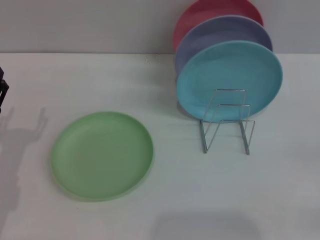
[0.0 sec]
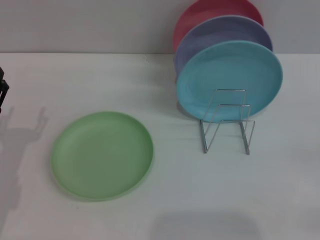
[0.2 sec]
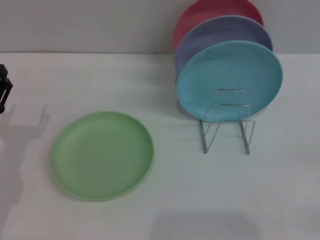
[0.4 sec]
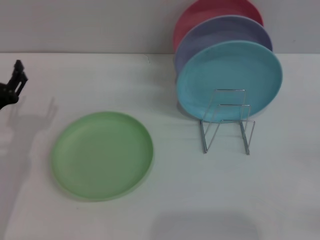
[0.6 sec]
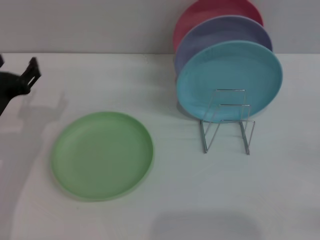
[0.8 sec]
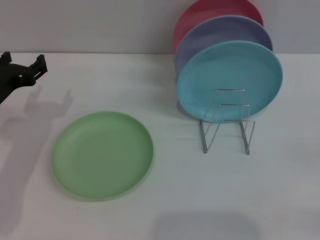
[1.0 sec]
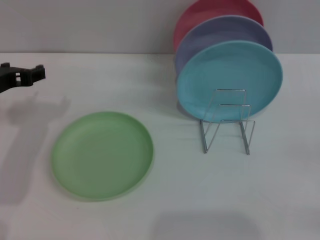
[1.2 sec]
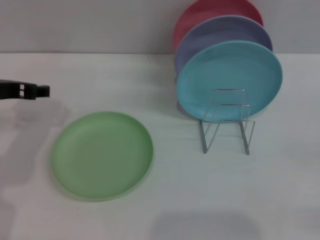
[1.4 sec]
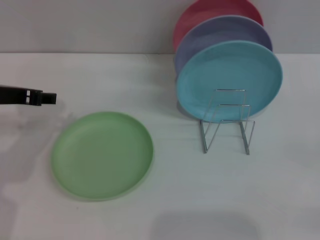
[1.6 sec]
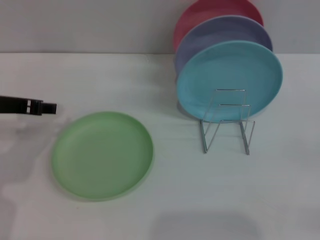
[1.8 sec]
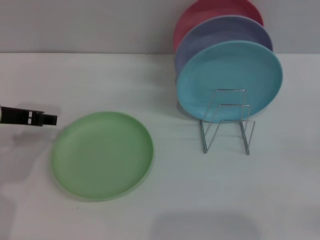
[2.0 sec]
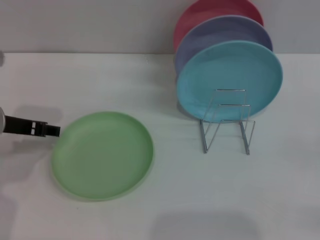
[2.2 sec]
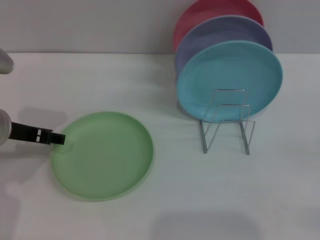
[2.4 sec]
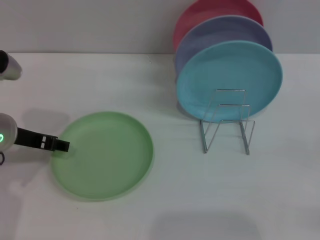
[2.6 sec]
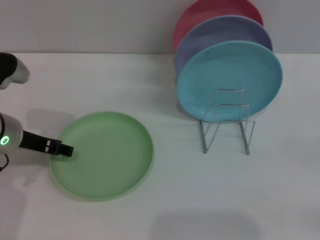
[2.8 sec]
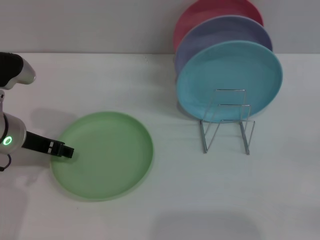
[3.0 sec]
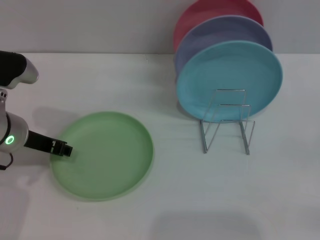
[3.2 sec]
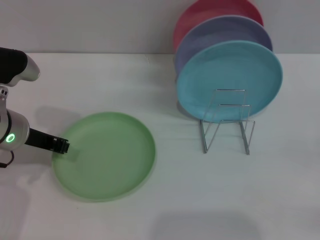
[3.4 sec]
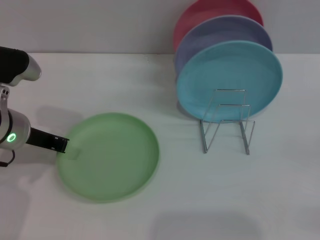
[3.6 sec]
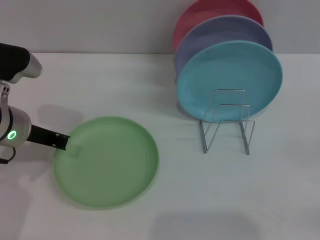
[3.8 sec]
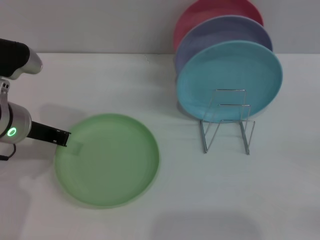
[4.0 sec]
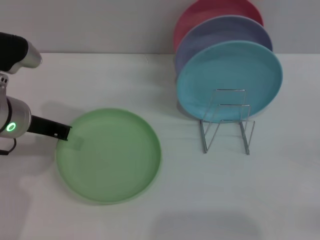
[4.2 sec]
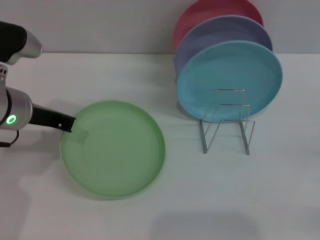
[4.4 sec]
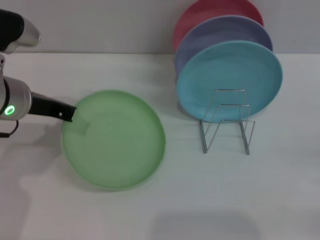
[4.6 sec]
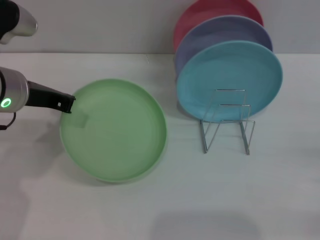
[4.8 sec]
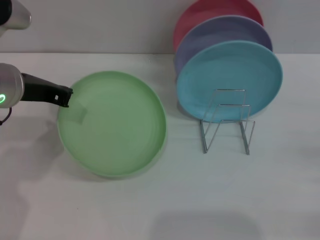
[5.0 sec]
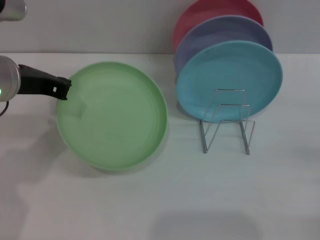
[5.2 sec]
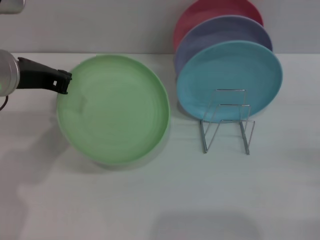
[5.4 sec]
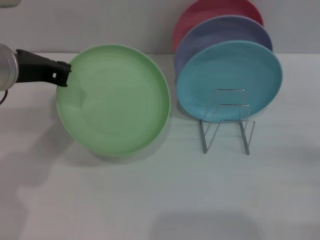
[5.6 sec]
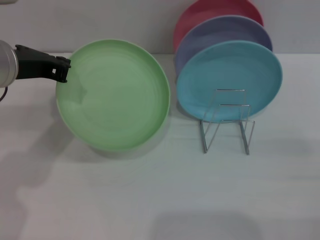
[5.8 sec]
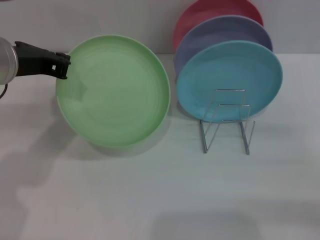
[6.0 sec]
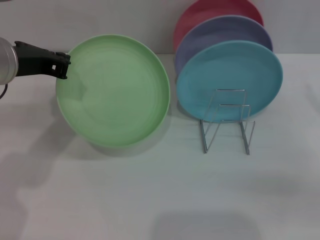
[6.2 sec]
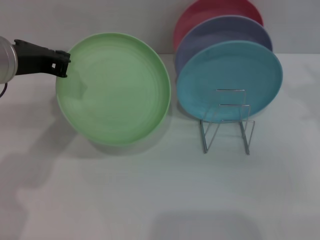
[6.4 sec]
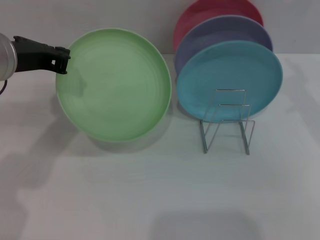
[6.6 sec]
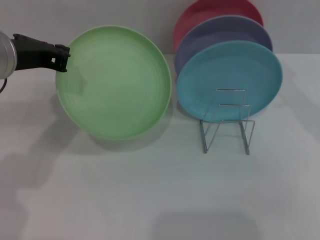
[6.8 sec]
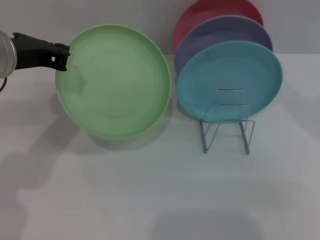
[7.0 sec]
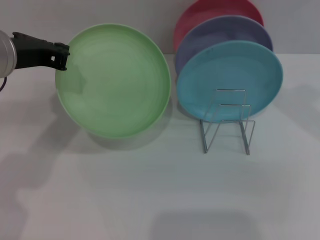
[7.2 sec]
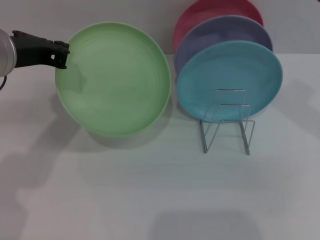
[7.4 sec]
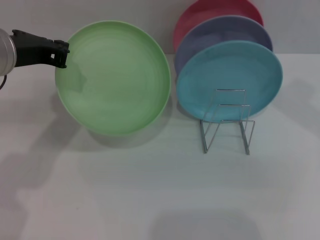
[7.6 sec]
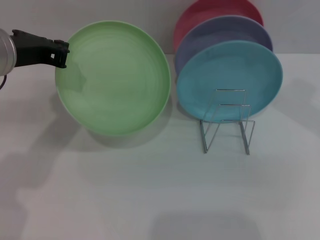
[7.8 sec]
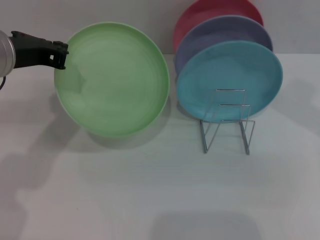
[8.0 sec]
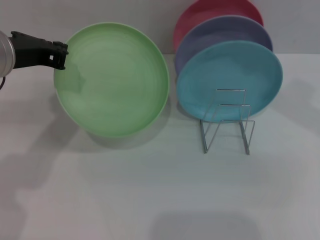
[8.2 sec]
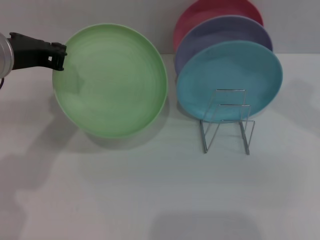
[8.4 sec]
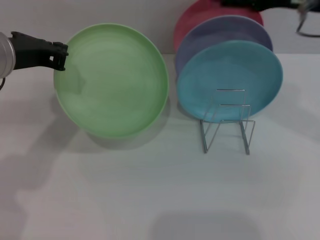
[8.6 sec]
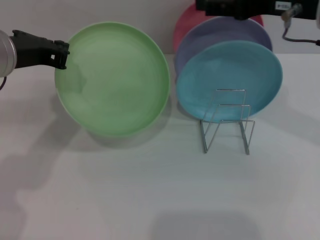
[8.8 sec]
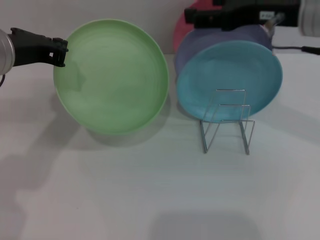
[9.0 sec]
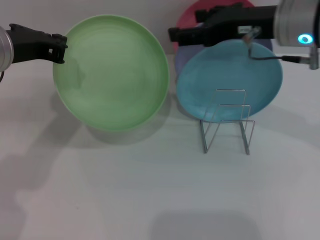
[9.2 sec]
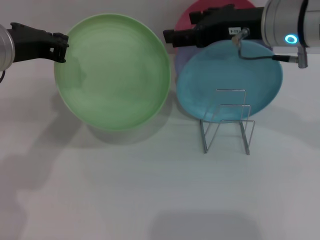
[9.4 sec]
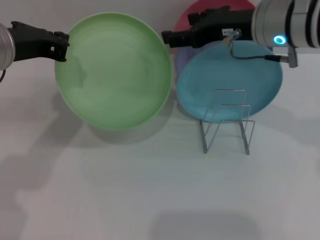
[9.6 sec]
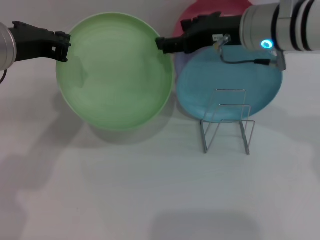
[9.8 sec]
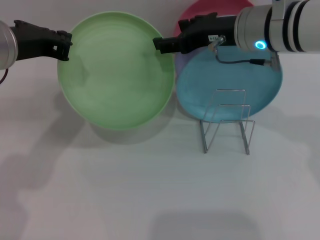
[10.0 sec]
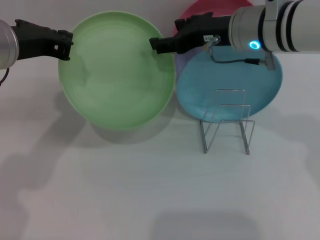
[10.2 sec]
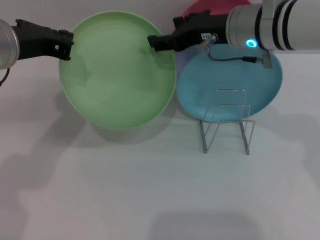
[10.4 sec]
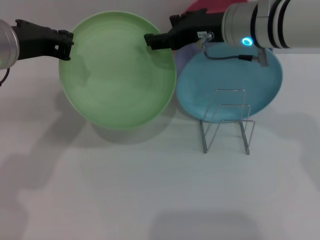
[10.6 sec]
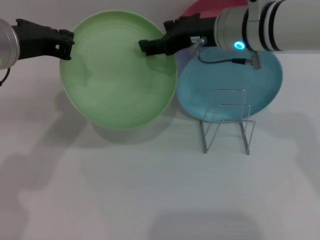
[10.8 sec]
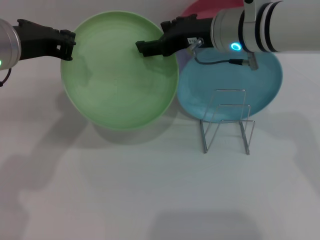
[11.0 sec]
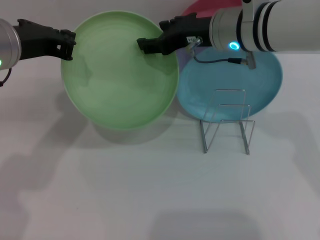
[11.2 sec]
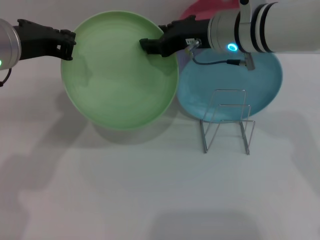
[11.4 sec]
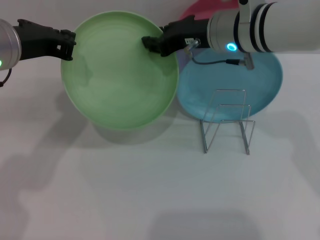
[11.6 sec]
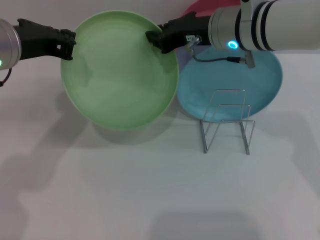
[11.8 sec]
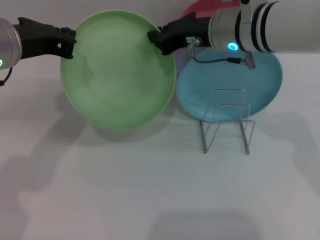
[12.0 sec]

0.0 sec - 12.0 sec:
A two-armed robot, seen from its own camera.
Task of the whole recording: Grip the plate with one hand, pass it to the other, then set it on the shelf.
Step, 0.0 sec - 5.8 sec: Pick up the plate with the left gripper.
0.0 sec - 1.6 sec: The left gripper goes approximately 15 cm upward and forward.
1.6 sec - 3.0 sec: The left gripper moves downward, approximately 5 cm.
3.0 sec - 4.4 sec: The left gripper closes its fingers.
4.4 sec - 6.0 sec: The grippers both shift upward by approximately 5 cm.
6.0 sec - 7.6 sec: The right gripper travels upward, to the left and forward by some 25 cm.
7.6 sec - 9.0 sec: The right gripper ends up about 5 cm from where it was.
9.0 sec - 10.4 sec: The right gripper travels to the left by approximately 5 cm.
10.4 sec - 12.0 sec: The right gripper closes.

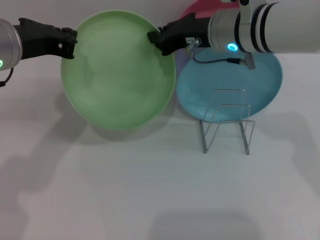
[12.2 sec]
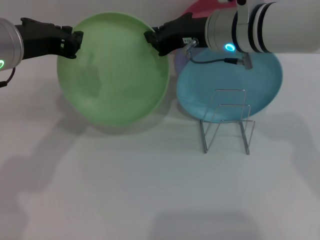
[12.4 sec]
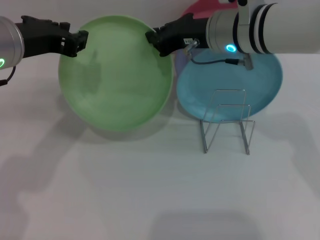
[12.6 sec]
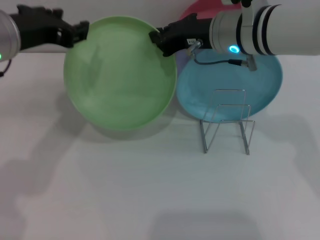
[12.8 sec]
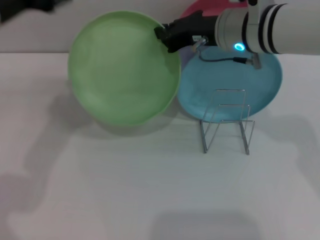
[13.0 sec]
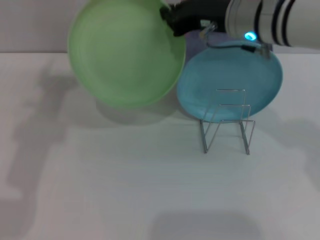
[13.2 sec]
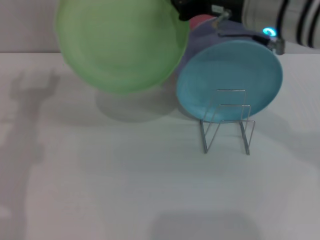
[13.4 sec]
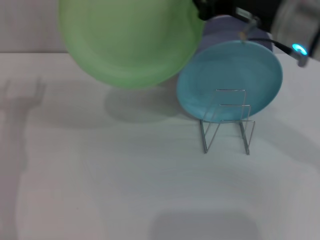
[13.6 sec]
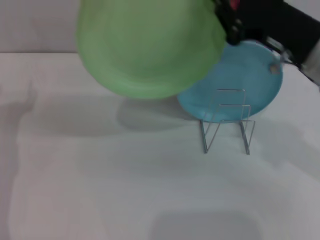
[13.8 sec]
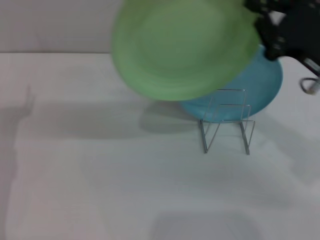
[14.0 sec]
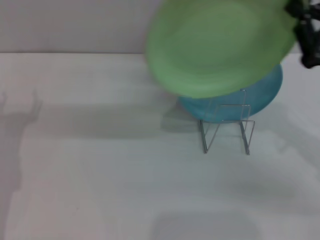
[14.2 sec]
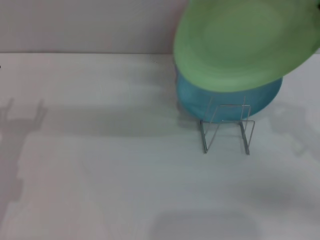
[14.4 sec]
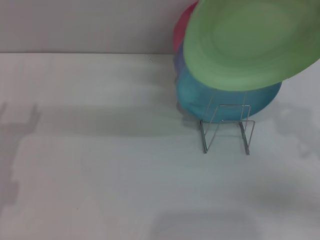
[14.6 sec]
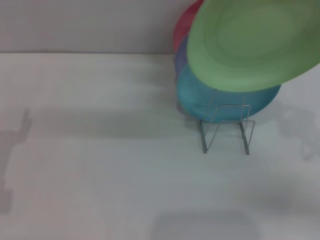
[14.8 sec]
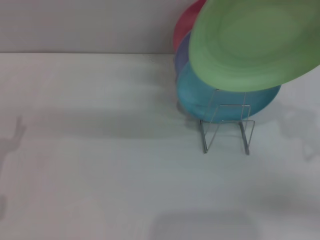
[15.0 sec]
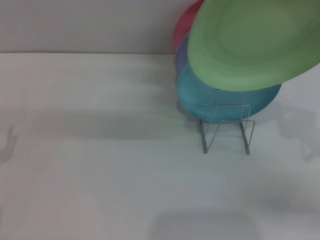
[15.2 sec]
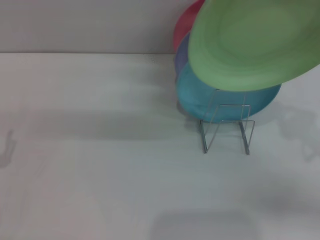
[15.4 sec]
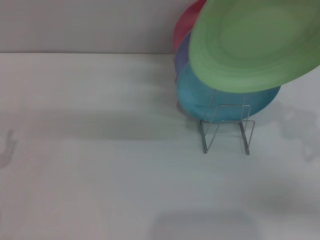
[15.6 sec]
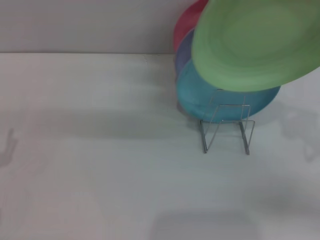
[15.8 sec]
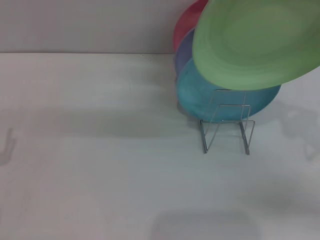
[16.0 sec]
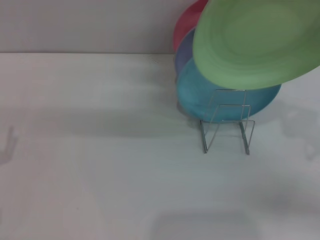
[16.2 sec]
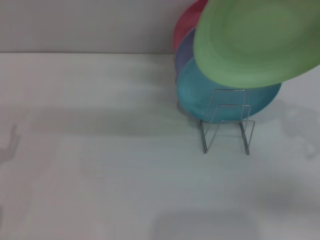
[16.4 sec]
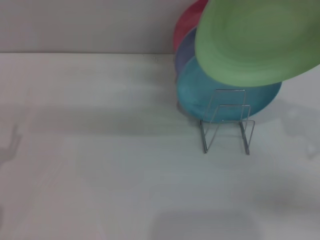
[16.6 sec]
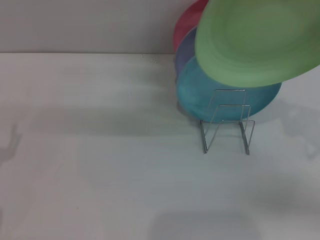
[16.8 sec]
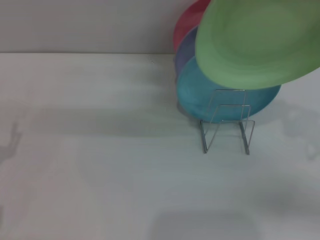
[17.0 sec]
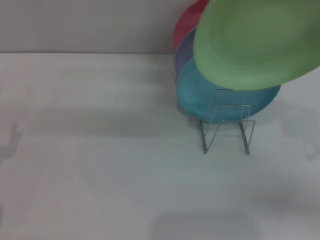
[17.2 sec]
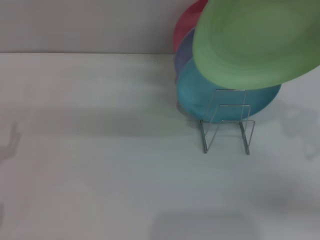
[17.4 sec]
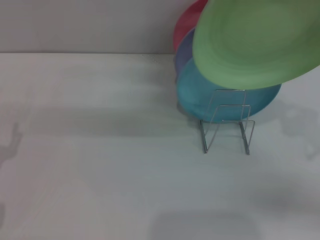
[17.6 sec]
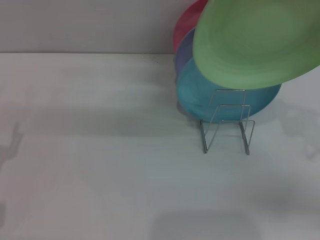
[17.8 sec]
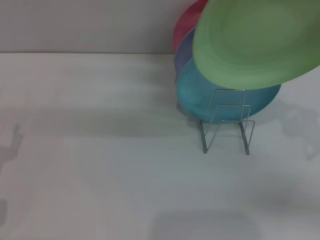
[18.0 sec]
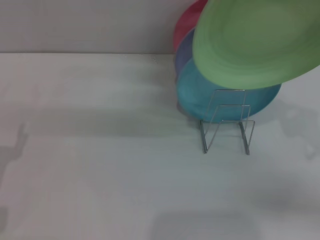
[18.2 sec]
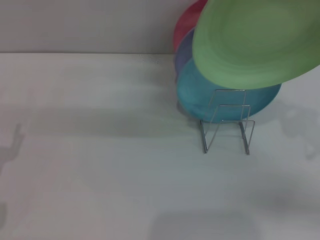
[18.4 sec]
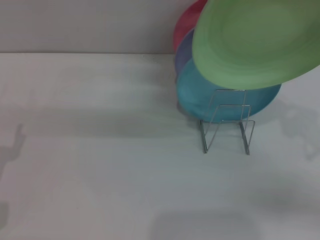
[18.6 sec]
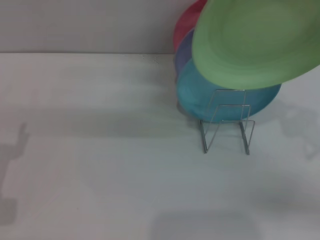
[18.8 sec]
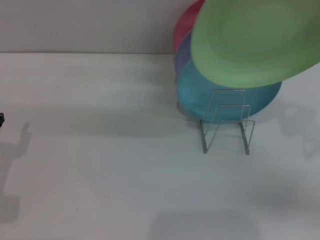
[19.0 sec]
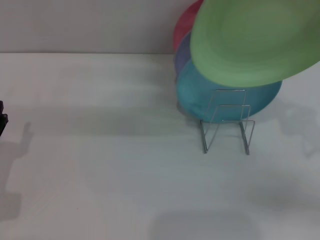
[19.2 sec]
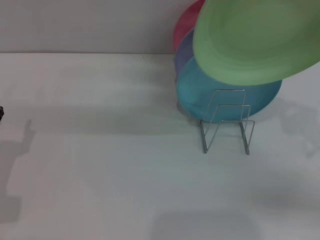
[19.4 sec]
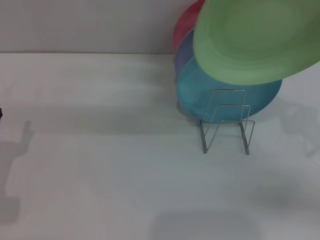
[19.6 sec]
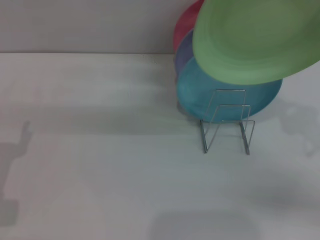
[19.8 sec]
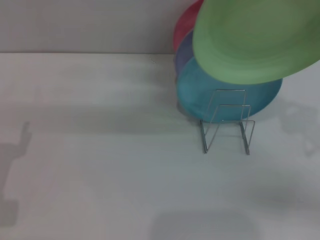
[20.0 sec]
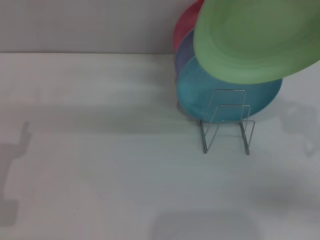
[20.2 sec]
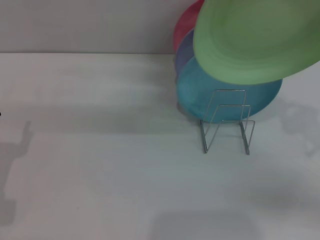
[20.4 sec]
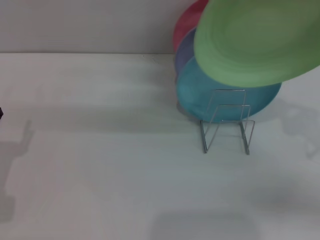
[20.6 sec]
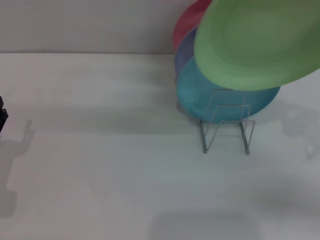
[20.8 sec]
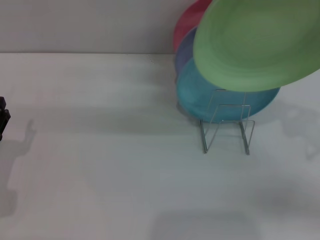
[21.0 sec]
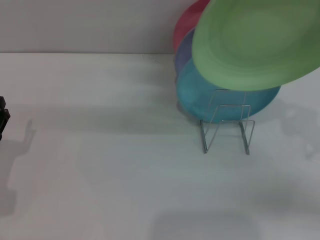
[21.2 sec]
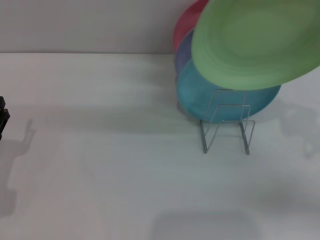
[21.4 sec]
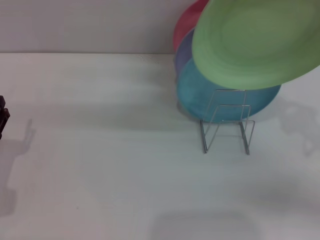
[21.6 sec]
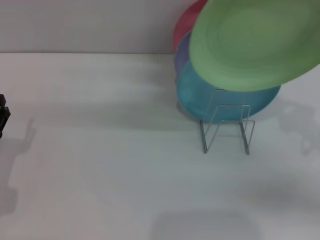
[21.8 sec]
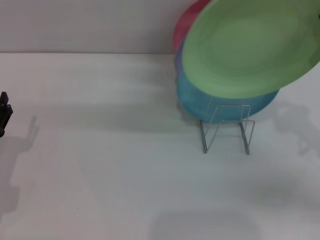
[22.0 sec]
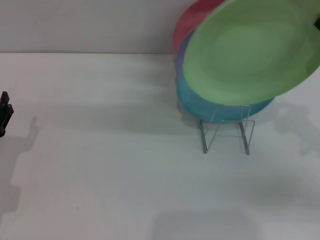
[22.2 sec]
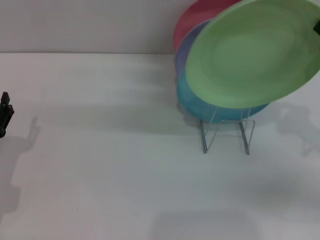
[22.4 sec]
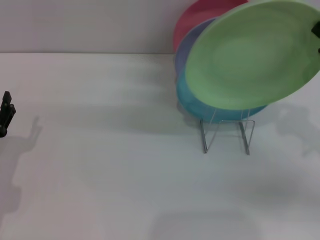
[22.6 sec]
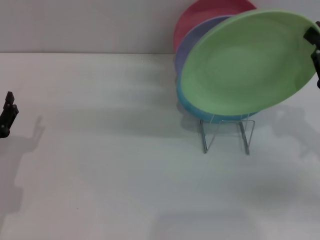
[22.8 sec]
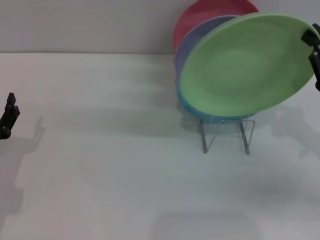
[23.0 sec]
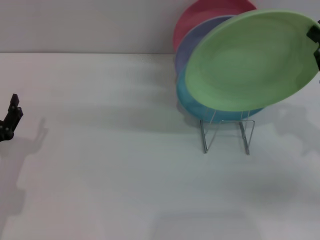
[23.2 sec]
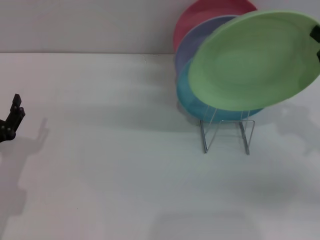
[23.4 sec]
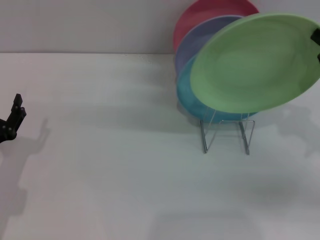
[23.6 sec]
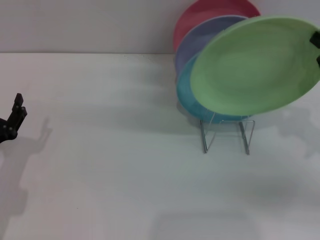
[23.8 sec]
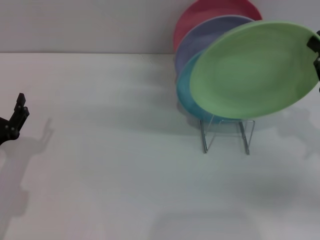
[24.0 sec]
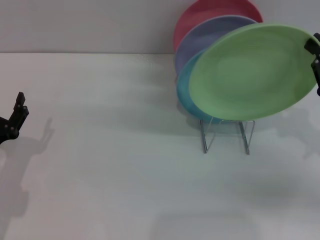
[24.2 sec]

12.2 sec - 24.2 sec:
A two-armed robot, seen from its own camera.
Task of the whole recording: Grip the plate with one hand, pass it to the other, then set it on the shelf.
12.2 sec - 13.8 sec: The right gripper is displaced backward and to the right by approximately 15 cm; the left gripper is displaced downward and to the left by about 15 cm, and opens.
13.8 sec - 15.2 sec: The left gripper travels downward and backward by roughly 10 cm. The right gripper goes some 15 cm to the right and downward.
15.2 sec - 16.6 sec: Both grippers stay about where they are.
16.6 sec - 18.2 sec: Both grippers stay about where they are.
19.8 sec - 22.6 sec: The grippers move only a little.
22.6 sec - 24.2 sec: The grippers move only a little.
